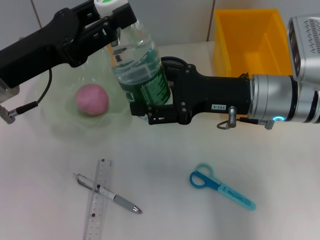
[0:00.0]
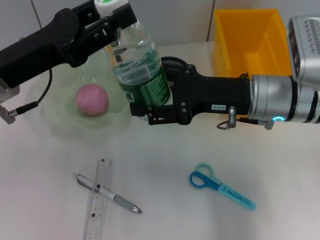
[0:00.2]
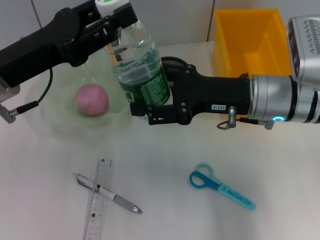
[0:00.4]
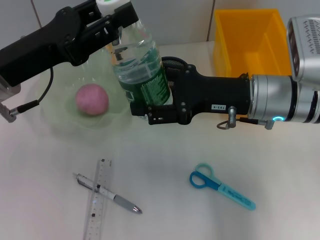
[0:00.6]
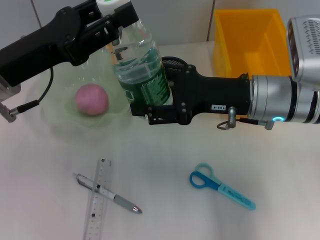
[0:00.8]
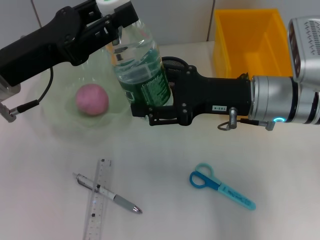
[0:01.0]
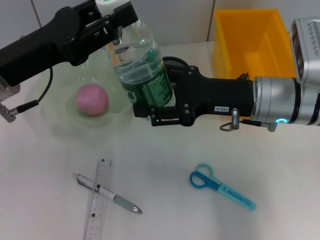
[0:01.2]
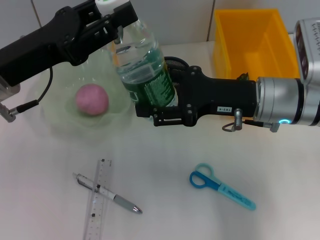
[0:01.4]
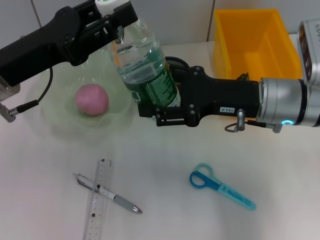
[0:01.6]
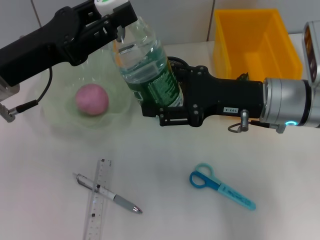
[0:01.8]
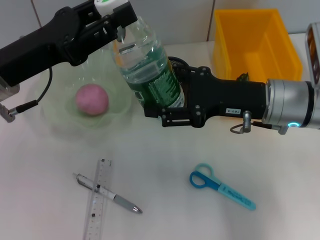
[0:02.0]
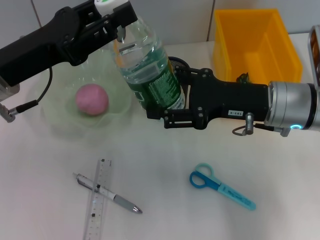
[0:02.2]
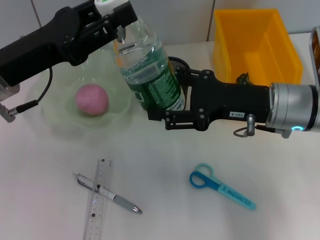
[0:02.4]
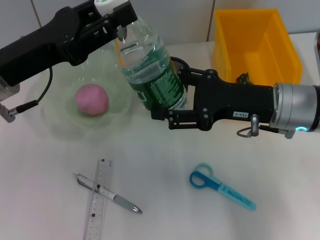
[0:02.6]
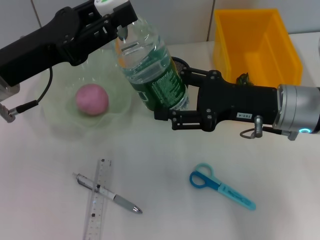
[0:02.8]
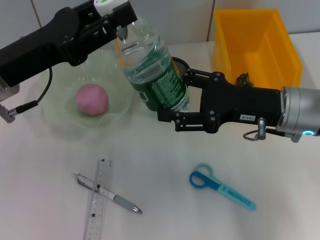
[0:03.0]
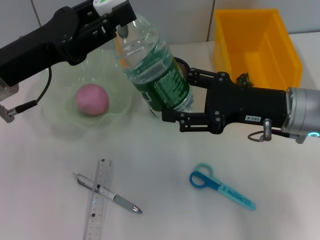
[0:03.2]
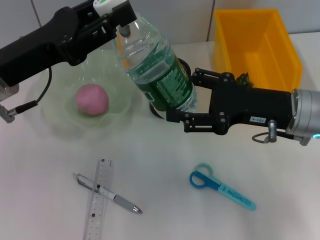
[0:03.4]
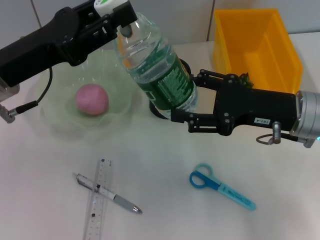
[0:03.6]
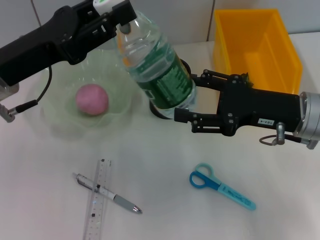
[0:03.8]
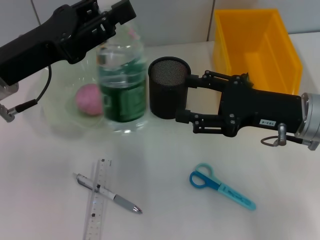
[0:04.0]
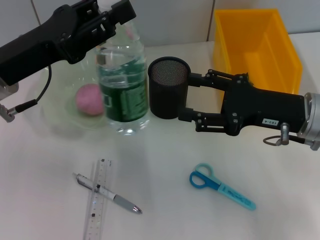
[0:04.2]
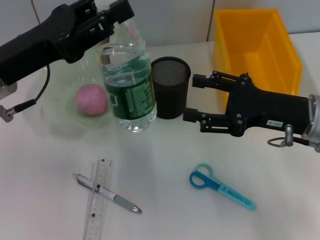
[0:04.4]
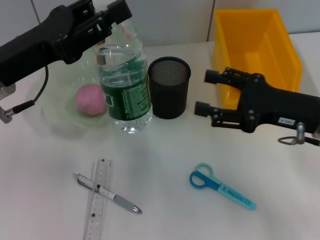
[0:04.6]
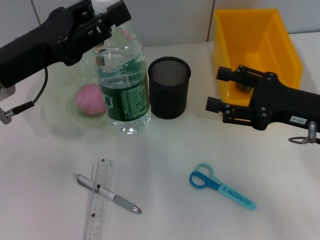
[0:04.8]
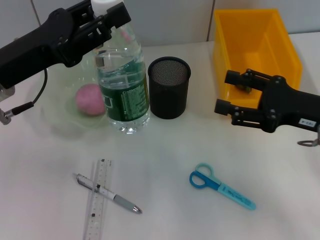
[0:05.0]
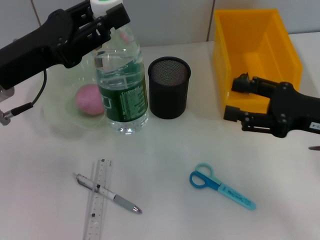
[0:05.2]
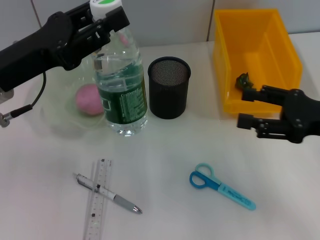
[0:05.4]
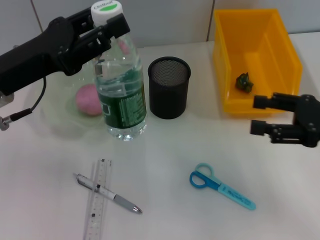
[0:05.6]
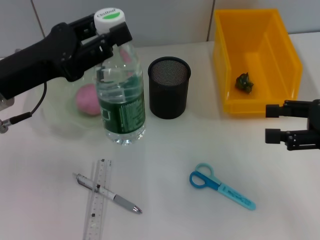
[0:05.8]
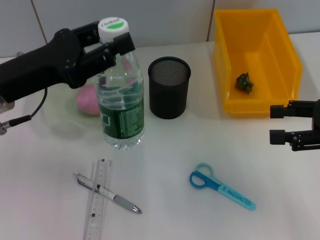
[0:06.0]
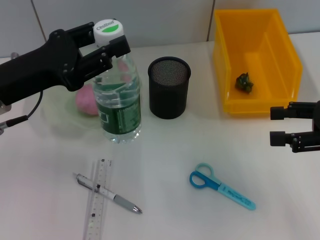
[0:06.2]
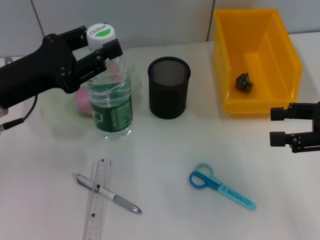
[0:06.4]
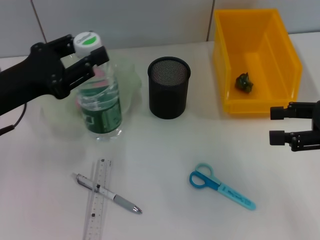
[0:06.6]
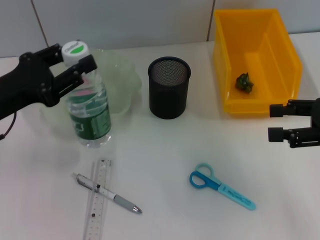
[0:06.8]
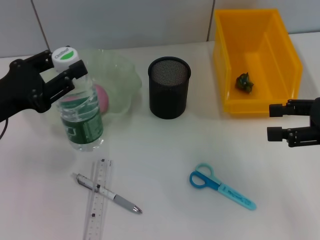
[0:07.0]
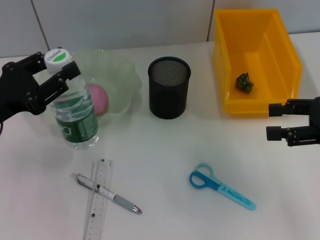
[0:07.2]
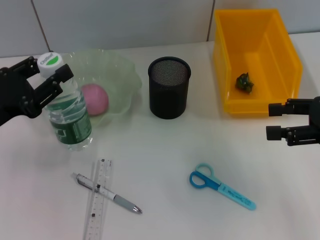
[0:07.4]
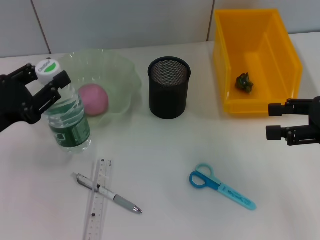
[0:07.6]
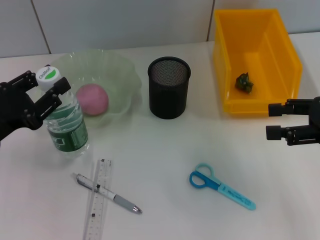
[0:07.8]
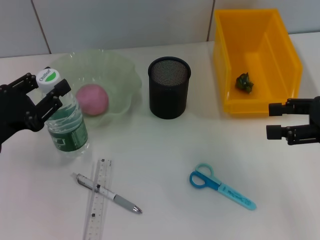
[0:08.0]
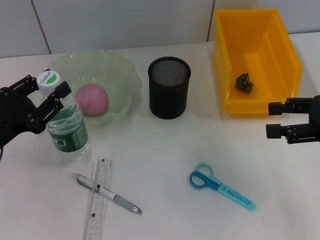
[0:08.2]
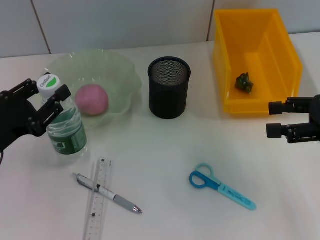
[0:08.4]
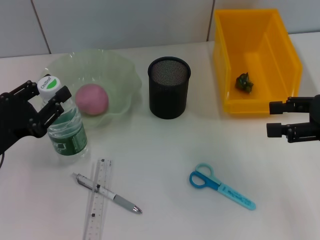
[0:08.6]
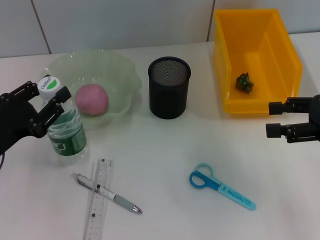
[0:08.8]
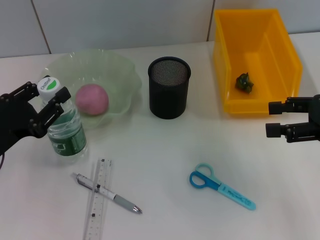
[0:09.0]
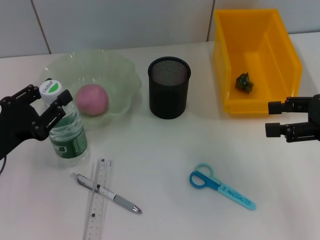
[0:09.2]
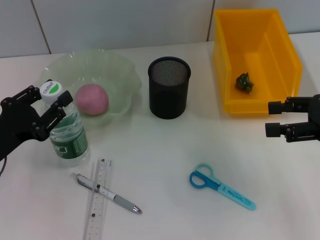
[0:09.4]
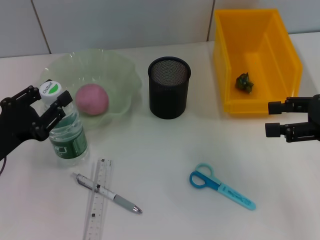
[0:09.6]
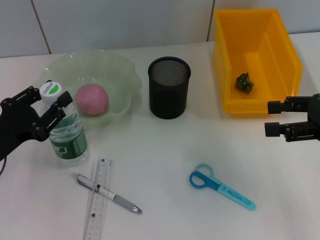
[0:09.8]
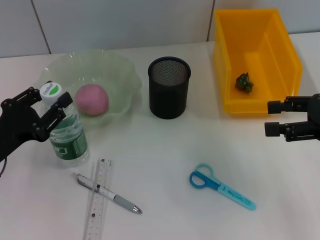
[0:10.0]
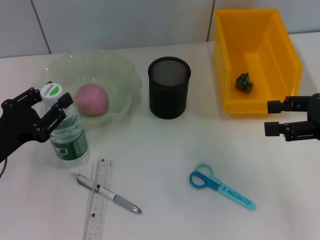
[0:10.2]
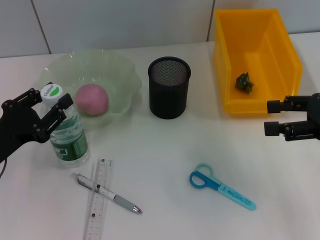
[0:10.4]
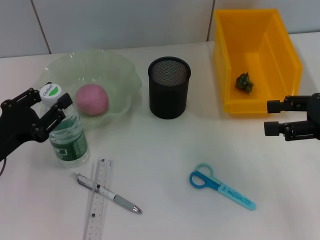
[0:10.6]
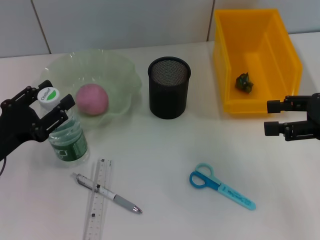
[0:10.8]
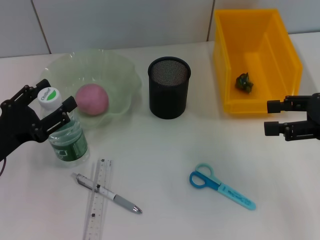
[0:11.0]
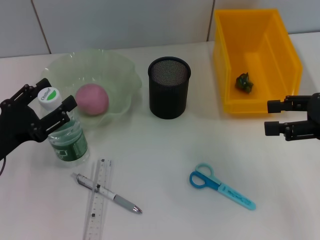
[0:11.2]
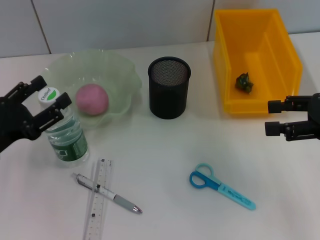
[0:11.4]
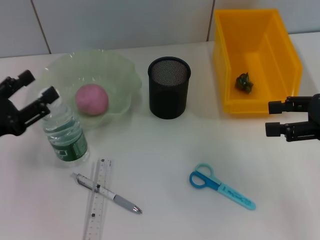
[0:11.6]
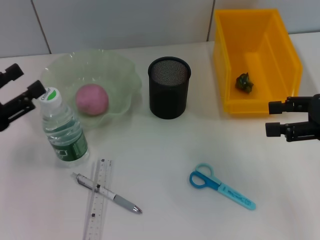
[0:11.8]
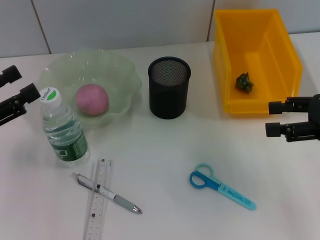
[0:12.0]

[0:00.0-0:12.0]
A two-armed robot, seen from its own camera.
Step, 0:00.0 to 0:02.8: Pass the water bottle from the right hand to the left hand.
Step, 0:03.0 to 0:11.2: Place the water bottle on the table with the left hand.
0:00.0 to 0:01.6: Both grippers stay about where they are.
0:01.6 to 0:03.0: The grippers make only small movements.
0:03.0 to 0:04.4: The grippers stay close to where they were, moving slightly.
0:04.4 to 0:06.0: The right gripper is displaced to the right by approximately 10 cm.
0:06.0 to 0:07.6: The left gripper is displaced downward and to the left by about 10 cm.
0:07.6 to 0:09.0: The grippers stay close to where they were, moving slightly.
0:09.0 to 0:10.4: Both grippers stay put.
0:10.4 to 0:12.0: The left gripper heads upward, covering approximately 5 cm, and opens up.

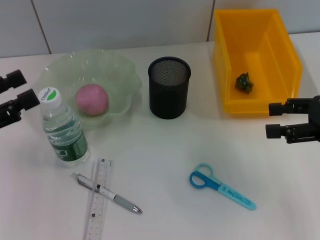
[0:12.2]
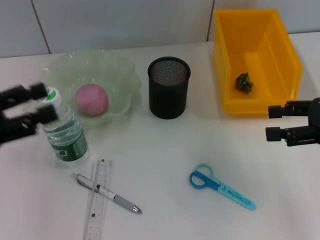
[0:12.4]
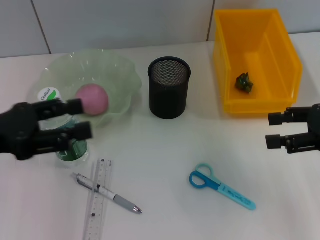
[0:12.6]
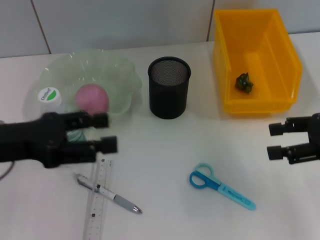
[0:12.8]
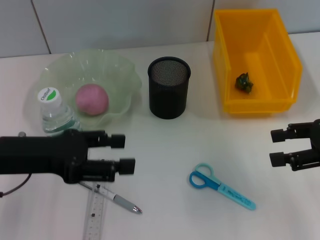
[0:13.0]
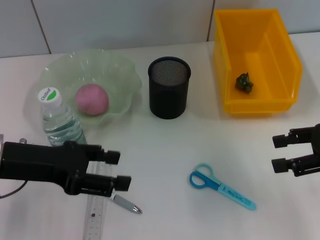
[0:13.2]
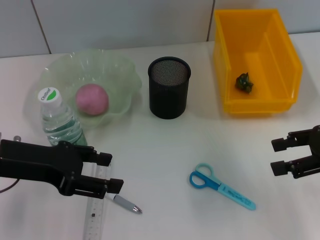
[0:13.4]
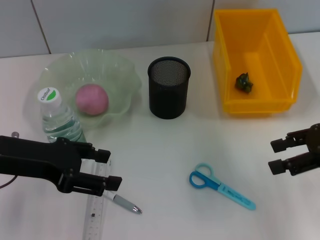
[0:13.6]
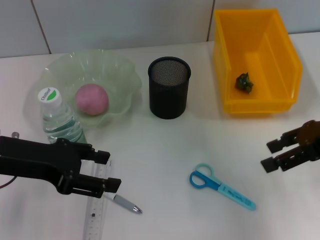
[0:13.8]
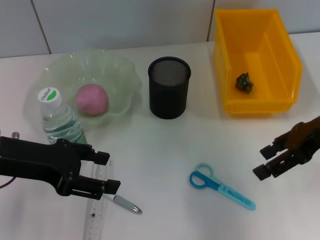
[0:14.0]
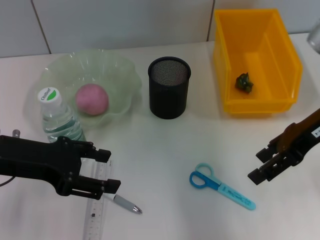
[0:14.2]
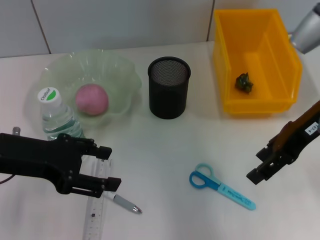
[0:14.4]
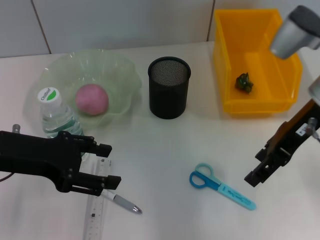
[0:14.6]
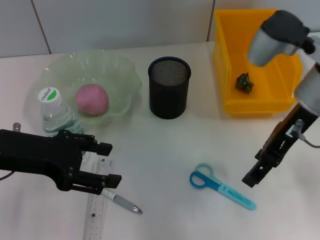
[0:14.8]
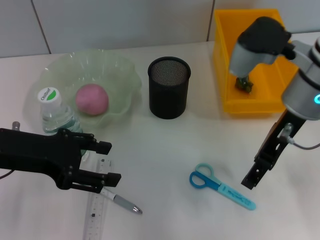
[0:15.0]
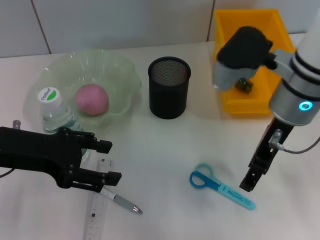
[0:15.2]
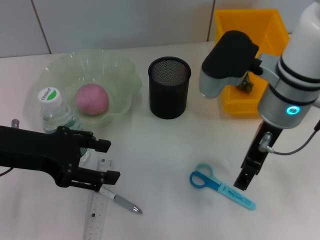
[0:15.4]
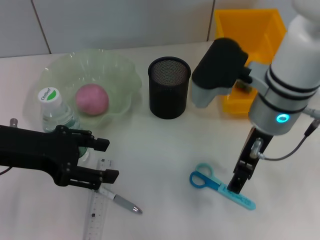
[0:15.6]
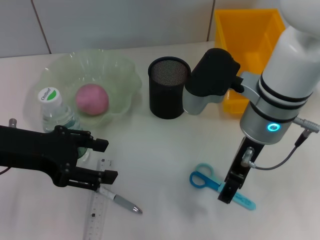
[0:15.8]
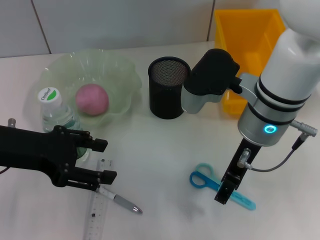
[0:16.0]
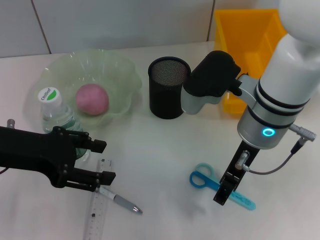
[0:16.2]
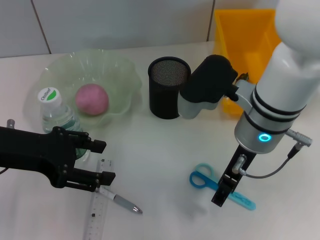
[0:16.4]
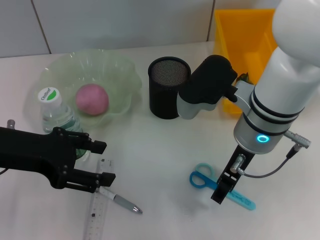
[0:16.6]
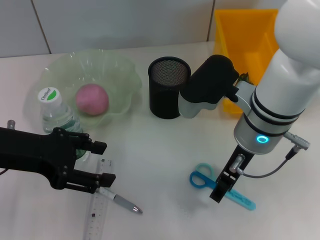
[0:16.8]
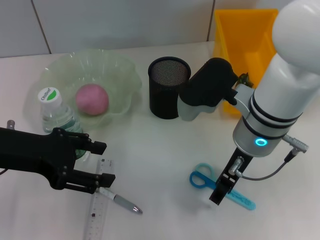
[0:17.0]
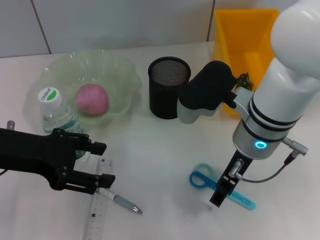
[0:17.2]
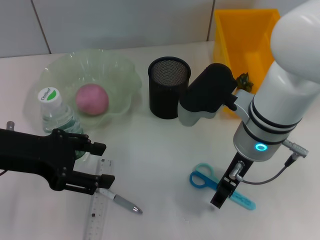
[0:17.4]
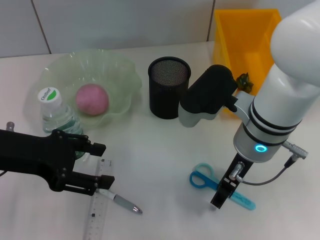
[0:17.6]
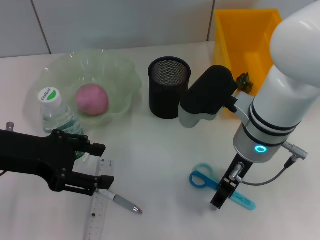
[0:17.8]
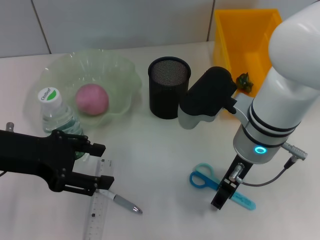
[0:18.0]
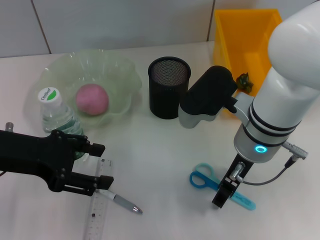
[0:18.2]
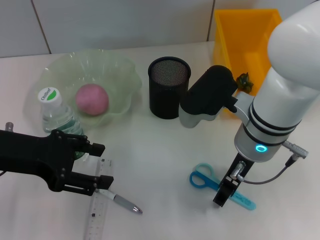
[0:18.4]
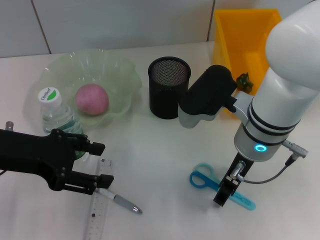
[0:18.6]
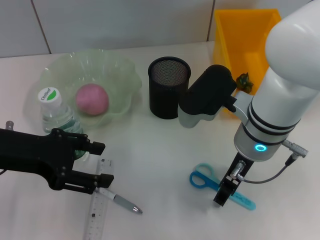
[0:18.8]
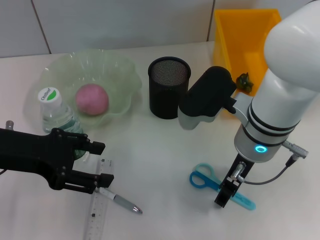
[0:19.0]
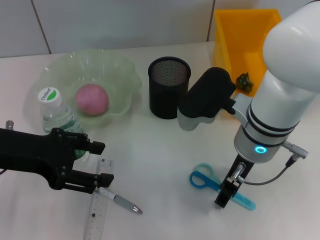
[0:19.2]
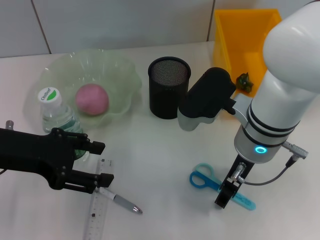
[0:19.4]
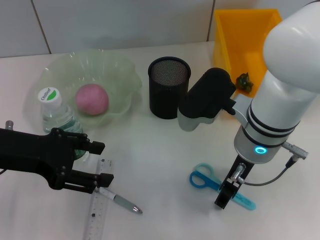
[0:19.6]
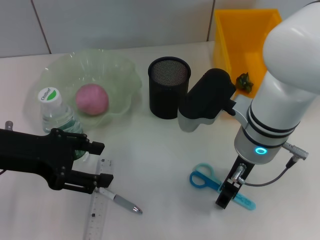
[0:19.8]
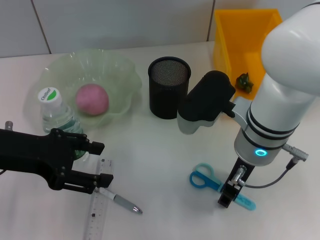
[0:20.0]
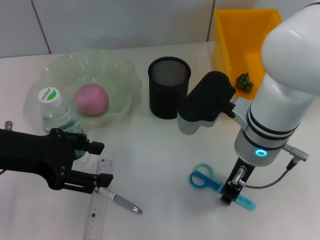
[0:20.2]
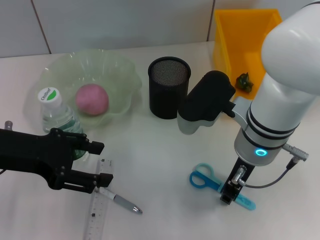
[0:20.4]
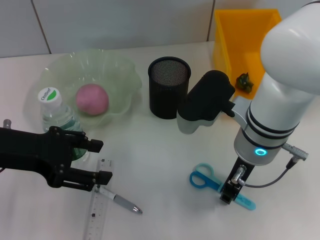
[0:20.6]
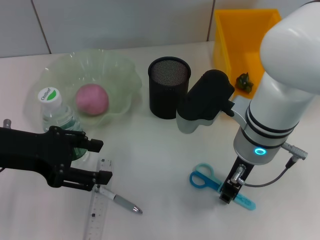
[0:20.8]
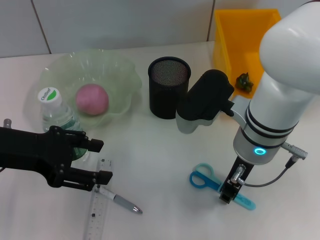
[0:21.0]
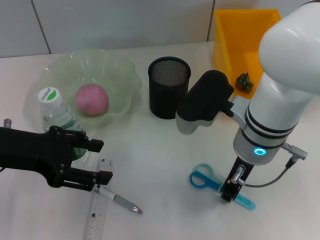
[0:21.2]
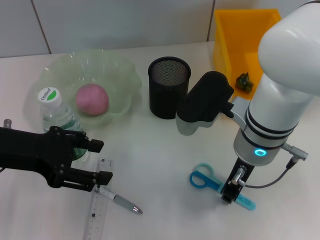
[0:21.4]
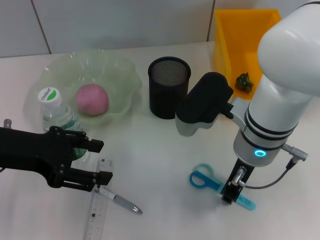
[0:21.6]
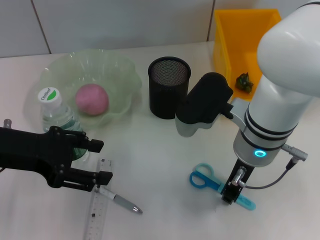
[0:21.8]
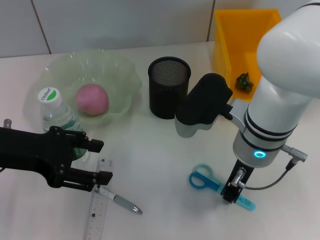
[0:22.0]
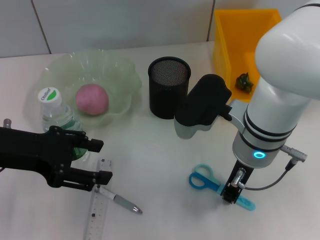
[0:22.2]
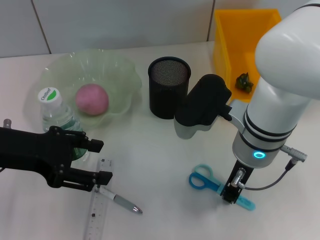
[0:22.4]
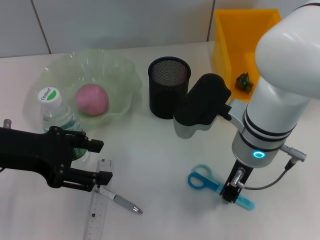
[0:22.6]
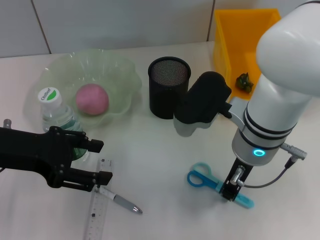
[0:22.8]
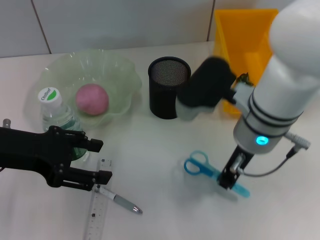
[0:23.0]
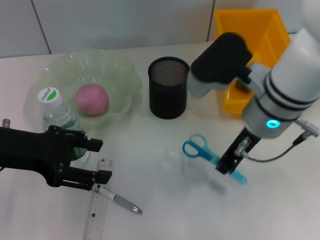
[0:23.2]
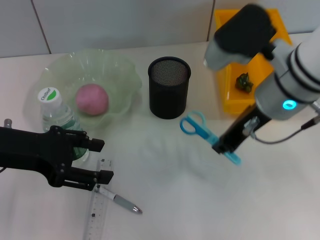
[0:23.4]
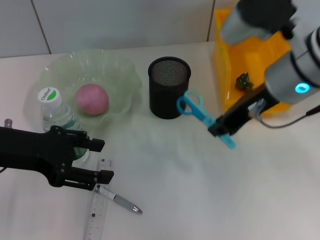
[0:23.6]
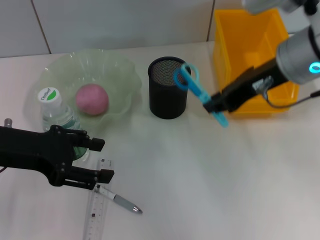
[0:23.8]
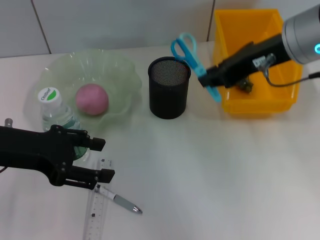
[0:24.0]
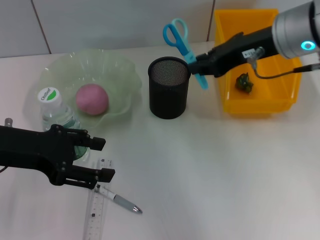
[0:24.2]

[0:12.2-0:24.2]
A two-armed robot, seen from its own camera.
Step, 0:12.2 to 0:21.4: Grab the blue scissors with the right hand.
0:12.2 to 0:13.8: The left gripper shifts about 10 cm to the right.
0:13.8 to 0:15.2: The right gripper travels to the left by about 15 cm.
0:15.2 to 0:16.6: The right gripper shifts by roughly 5 cm.
0:16.6 to 0:18.2: The grippers stay close to where they were, moving slightly.
0:18.2 to 0:19.8: The two grippers keep their place.
0:19.8 to 0:21.2: The right gripper closes.
0:21.2 to 0:22.6: The two grippers keep their place.
0:22.6 to 0:24.2: The right gripper moves upward, to the right and forward, roughly 15 cm.
